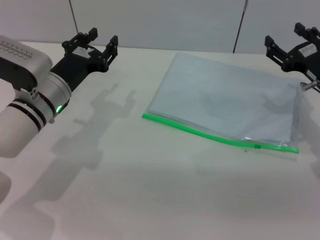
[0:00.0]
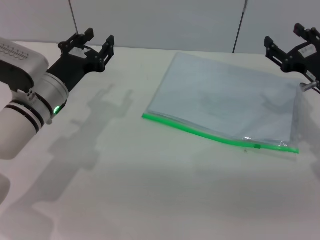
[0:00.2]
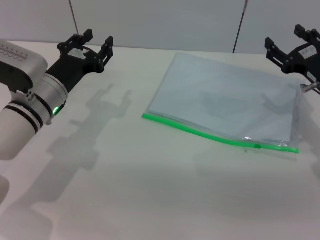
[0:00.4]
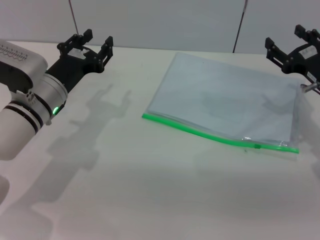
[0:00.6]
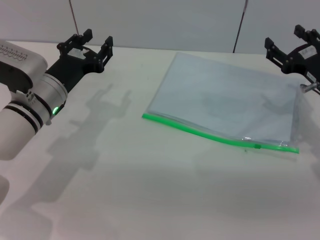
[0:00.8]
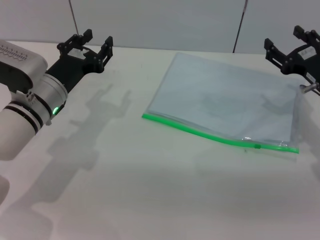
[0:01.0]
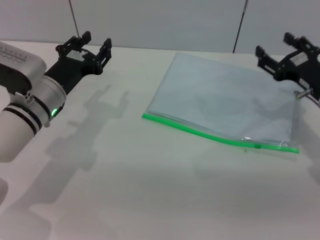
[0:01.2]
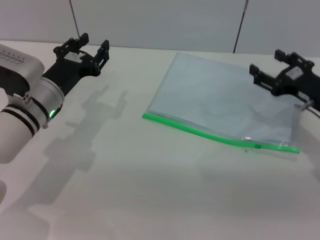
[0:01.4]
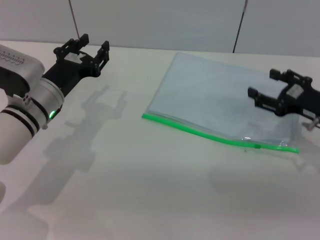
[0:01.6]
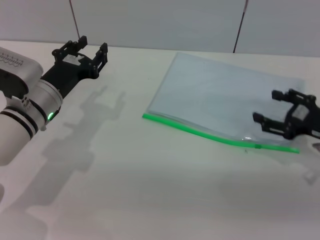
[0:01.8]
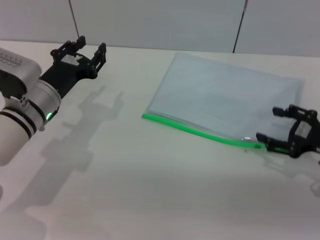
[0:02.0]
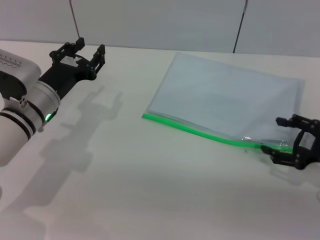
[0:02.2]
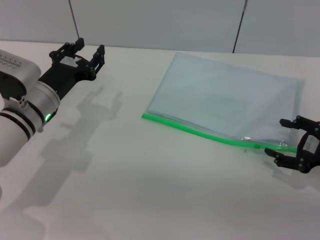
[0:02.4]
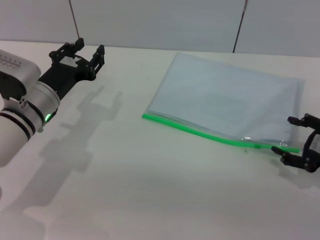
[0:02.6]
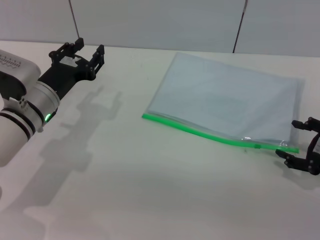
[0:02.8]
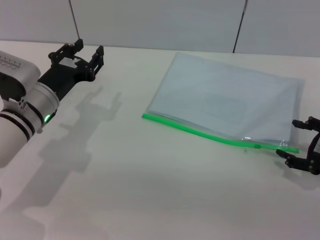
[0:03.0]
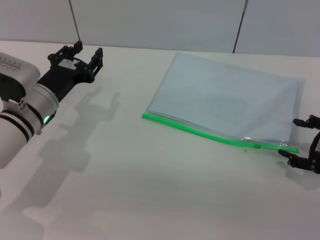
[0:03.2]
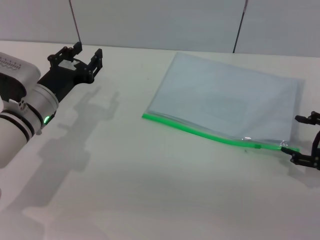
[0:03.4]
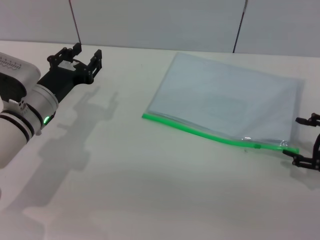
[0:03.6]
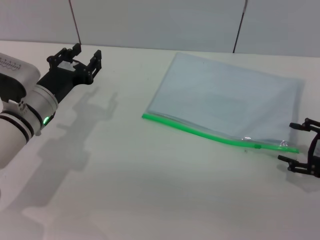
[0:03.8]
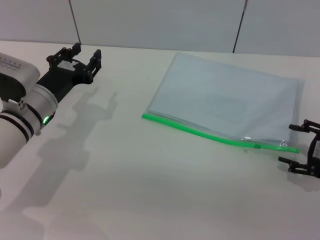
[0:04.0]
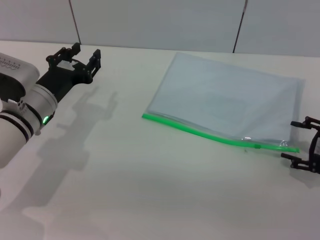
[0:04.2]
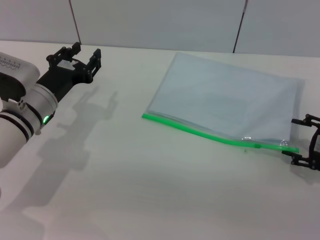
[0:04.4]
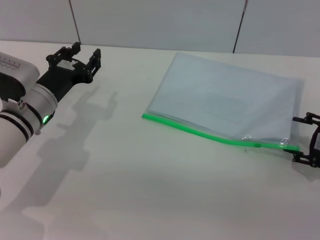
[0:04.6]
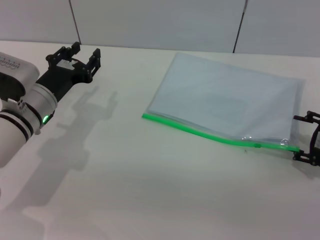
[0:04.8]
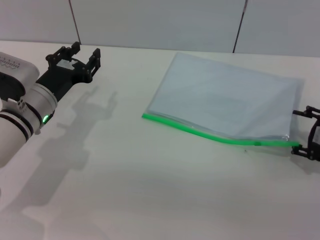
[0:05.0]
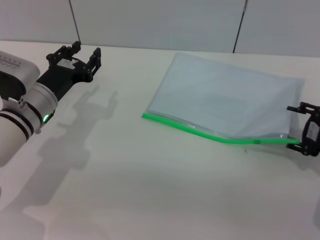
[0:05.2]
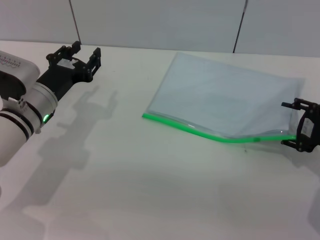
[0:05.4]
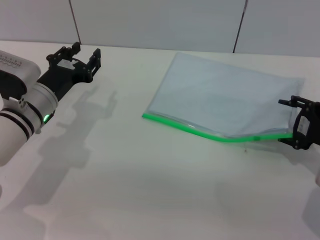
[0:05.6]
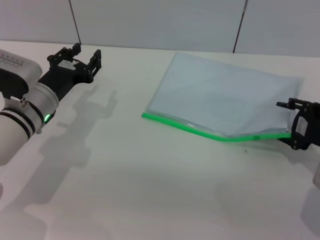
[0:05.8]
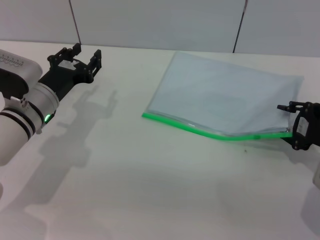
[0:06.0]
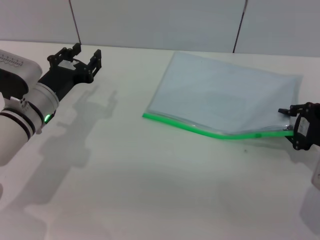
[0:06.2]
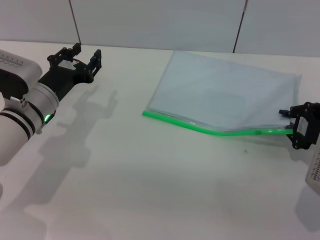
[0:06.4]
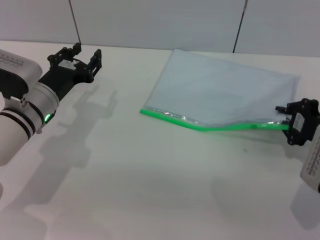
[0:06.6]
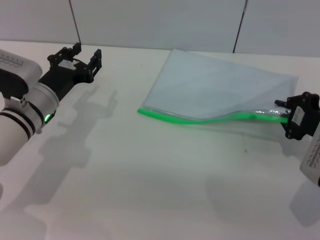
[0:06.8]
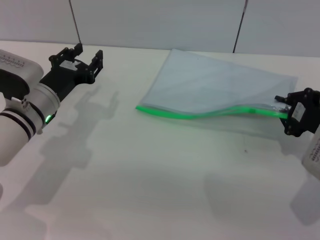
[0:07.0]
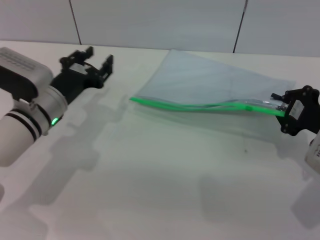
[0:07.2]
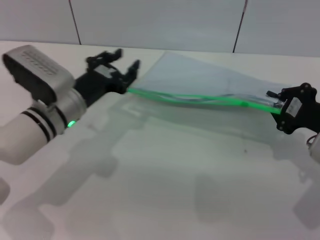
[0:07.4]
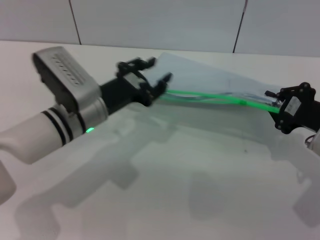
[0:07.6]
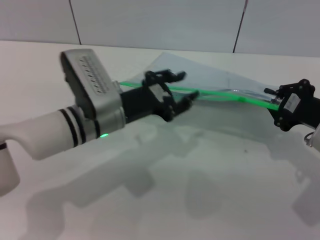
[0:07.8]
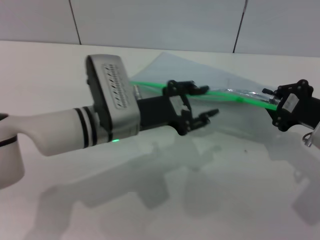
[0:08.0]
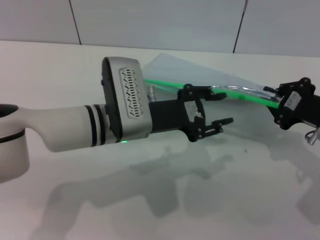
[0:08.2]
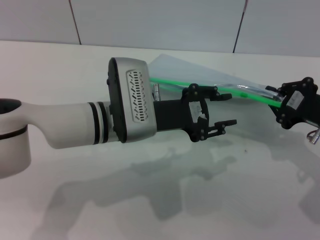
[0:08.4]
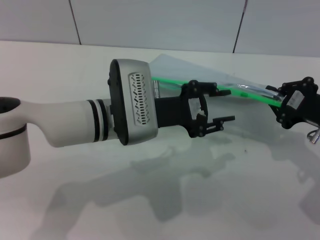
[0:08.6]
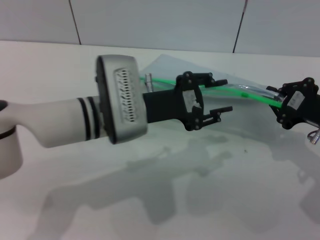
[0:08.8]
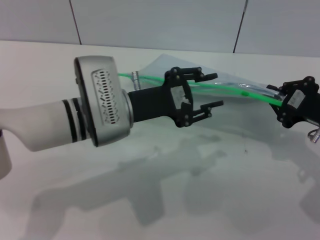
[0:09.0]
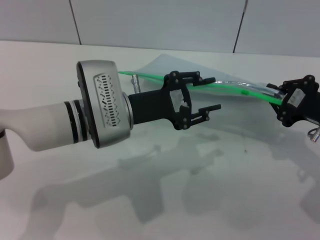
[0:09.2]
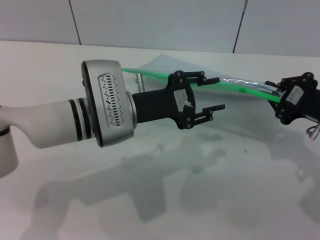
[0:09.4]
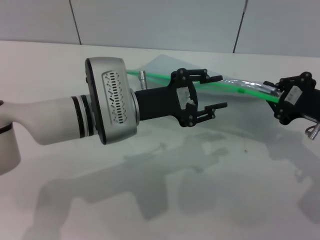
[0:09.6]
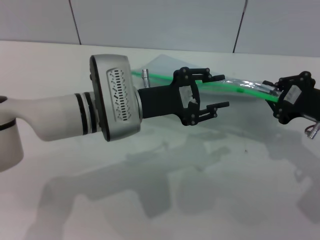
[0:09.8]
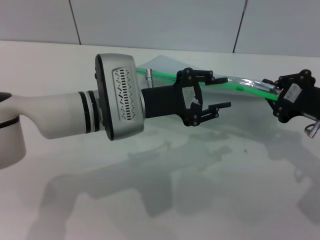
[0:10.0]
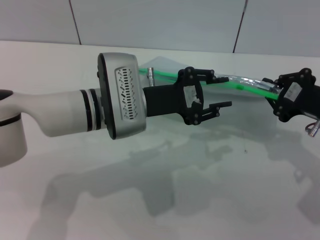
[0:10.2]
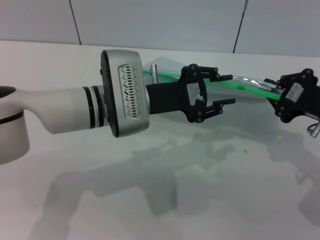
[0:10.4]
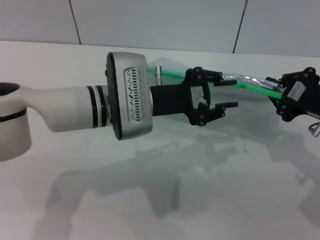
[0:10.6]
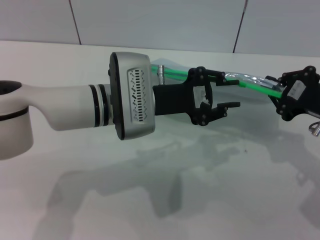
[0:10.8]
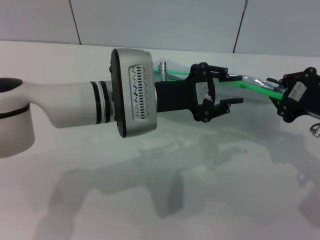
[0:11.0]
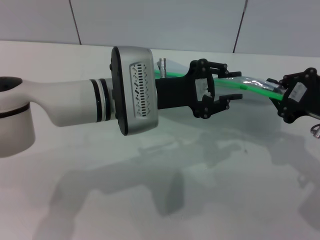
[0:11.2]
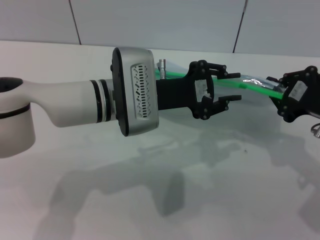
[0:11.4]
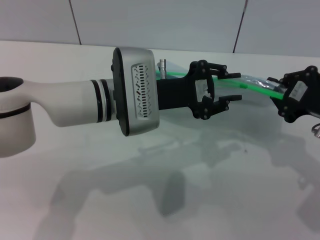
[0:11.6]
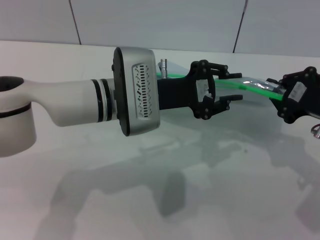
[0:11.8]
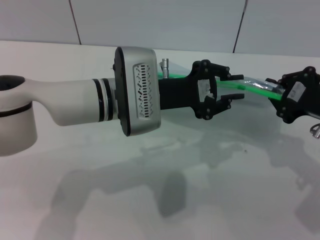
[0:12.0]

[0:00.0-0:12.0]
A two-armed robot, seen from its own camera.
Step, 0.0 to 9.8 s: Pick up the transparent plastic bag with the right gripper.
1.6 to 3.0 s: The right gripper travels backward by some 5 cm.
3.0 to 4.4 s: The grippers move only a little.
4.4 to 6.0 s: There are only small adjustments of the grippers.
6.0 to 7.6 s: The left gripper goes some 5 cm to the right; the right gripper closes its fingers.
7.6 to 9.0 s: The left gripper changes place by about 5 cm.
9.0 to 12.0 s: The grippers stay close to where they were, moving slightly.

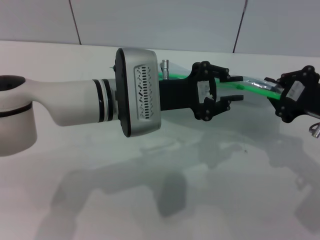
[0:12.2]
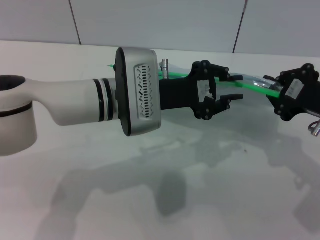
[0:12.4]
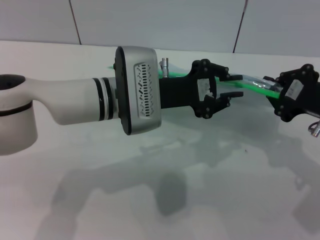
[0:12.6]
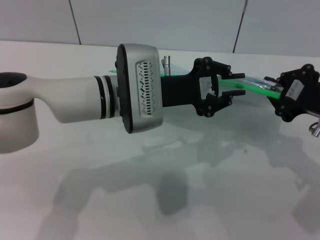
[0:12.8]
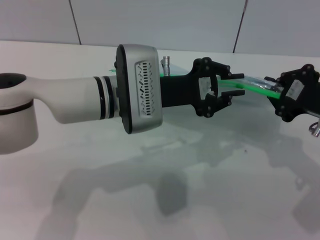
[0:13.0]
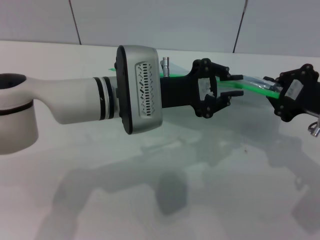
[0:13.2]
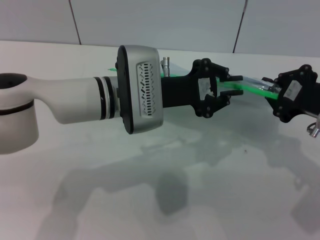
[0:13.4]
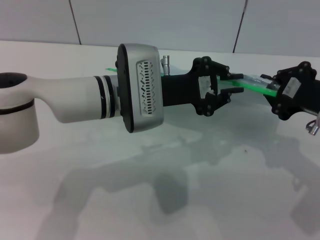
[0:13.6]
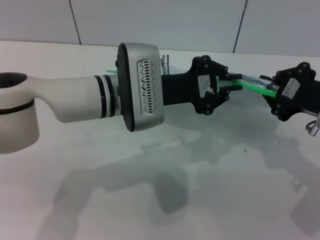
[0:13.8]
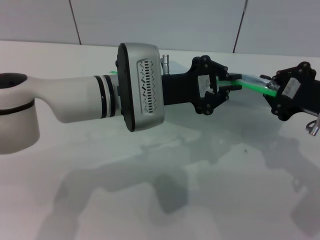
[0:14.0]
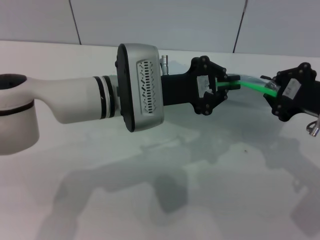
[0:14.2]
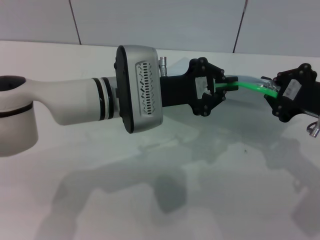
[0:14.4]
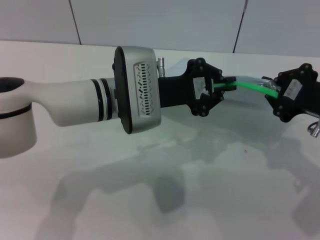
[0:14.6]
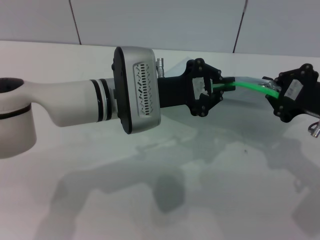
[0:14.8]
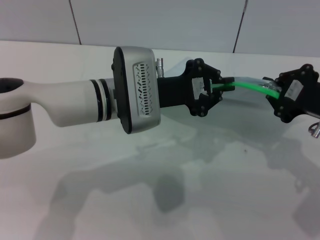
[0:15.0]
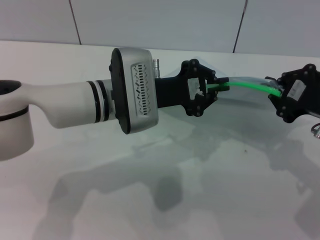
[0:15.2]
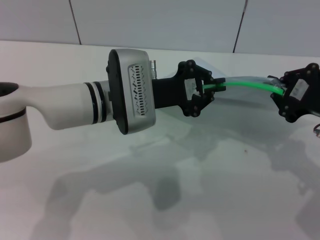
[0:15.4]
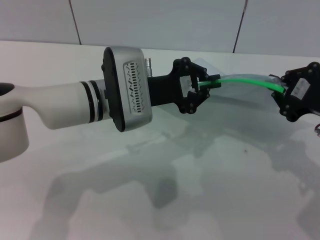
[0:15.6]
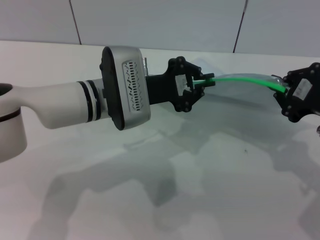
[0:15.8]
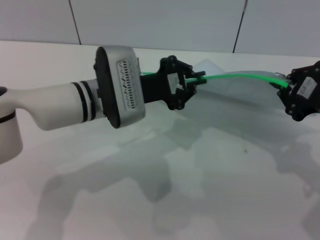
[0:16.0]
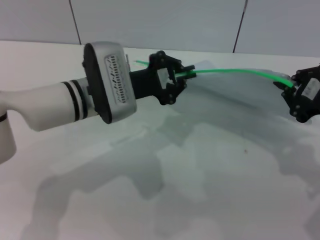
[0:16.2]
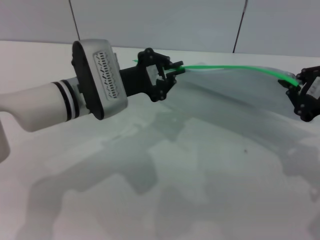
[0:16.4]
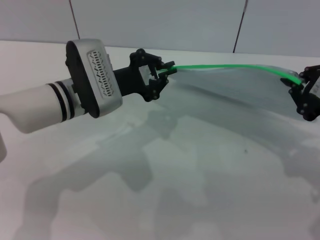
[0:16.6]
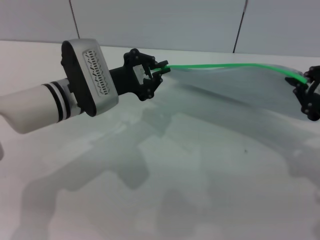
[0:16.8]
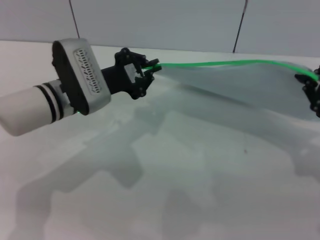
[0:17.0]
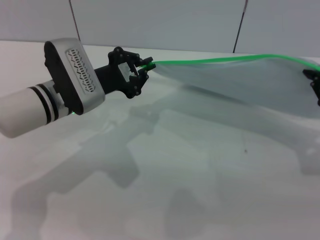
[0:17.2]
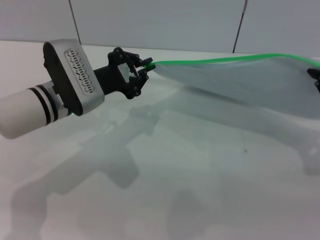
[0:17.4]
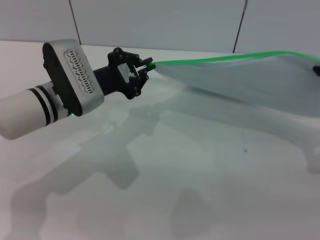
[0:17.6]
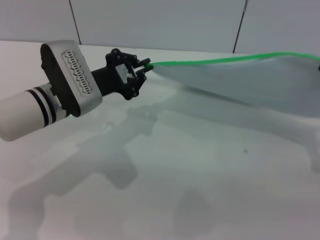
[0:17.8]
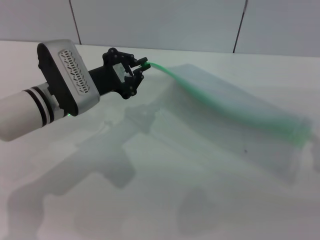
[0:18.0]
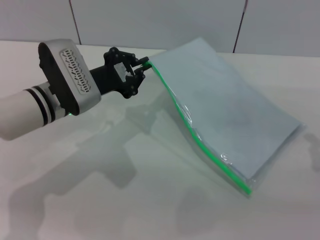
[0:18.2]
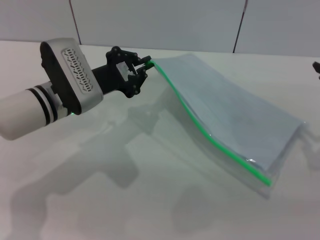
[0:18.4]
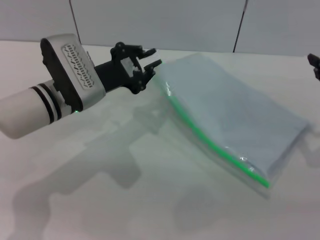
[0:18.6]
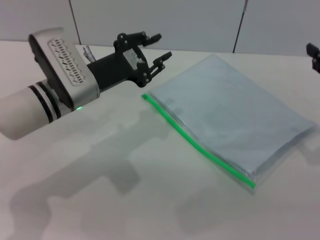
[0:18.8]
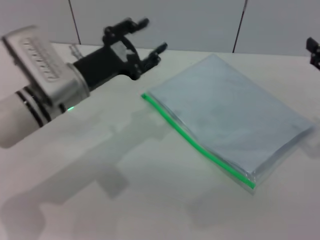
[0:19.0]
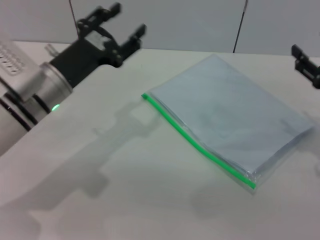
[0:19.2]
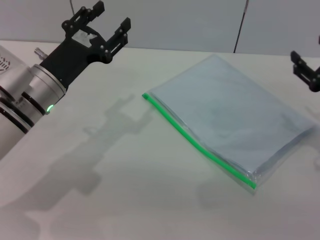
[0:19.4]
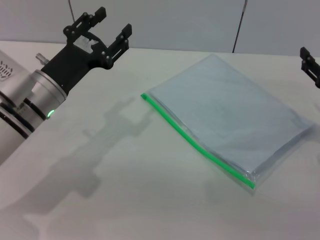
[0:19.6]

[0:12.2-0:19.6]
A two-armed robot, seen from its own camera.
Step, 12.2 to 18.2 s: Pulling up the zipper on the transparent plastic bag with the left gripper to close it.
Step, 18.4 to 19.0 s: Place the transparent plastic bag.
12.2 to 15.2 s: Both grippers stay about where they are.
15.2 to 16.6 s: The left gripper goes about 5 cm to the left.
18.2 to 19.6 s: The right gripper heads downward, covering about 10 cm, and opens. The left gripper opens.

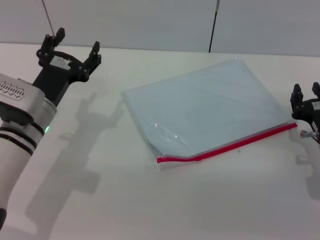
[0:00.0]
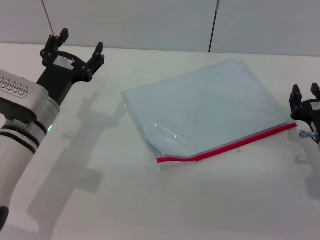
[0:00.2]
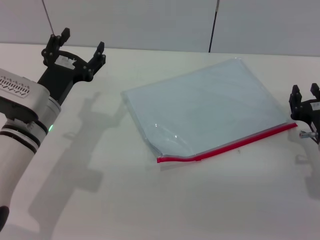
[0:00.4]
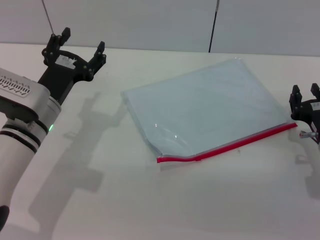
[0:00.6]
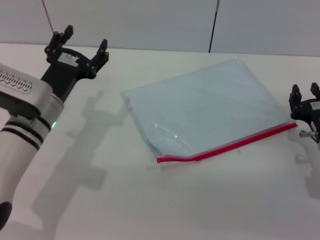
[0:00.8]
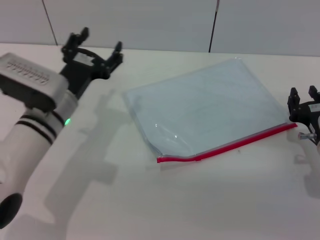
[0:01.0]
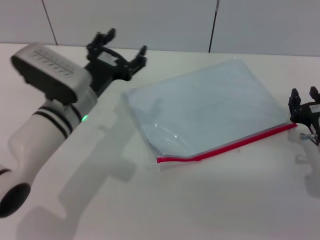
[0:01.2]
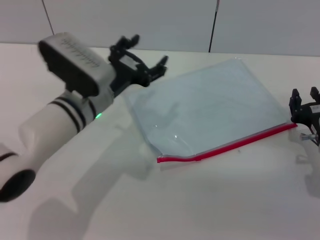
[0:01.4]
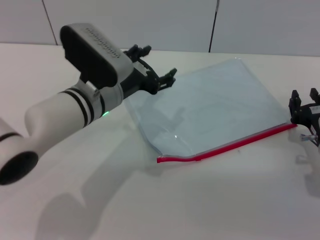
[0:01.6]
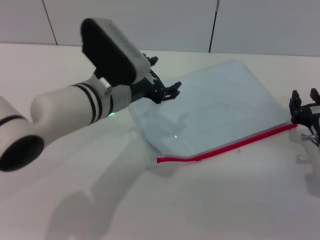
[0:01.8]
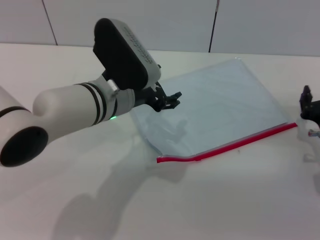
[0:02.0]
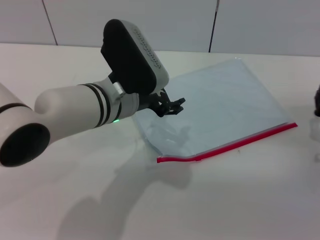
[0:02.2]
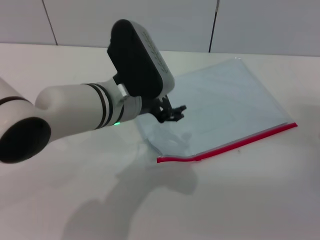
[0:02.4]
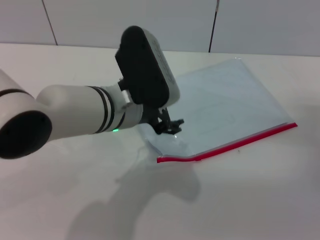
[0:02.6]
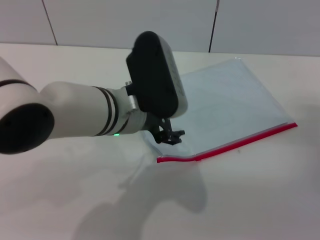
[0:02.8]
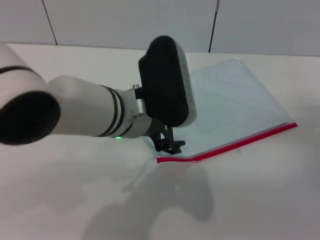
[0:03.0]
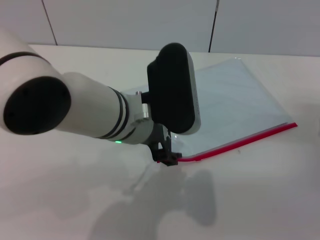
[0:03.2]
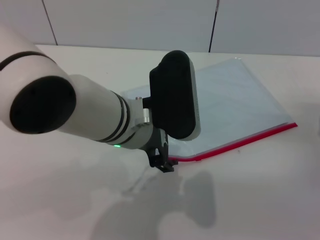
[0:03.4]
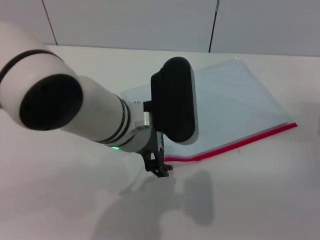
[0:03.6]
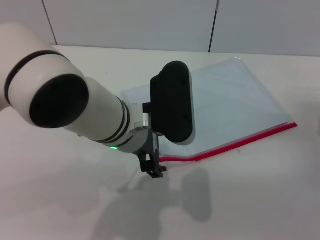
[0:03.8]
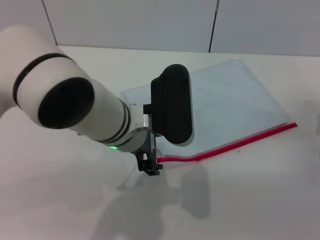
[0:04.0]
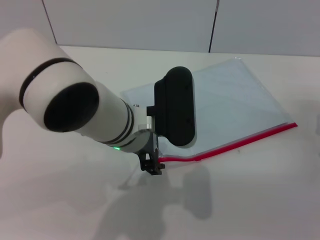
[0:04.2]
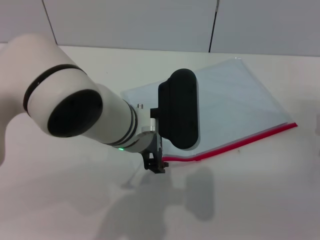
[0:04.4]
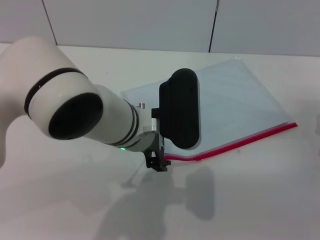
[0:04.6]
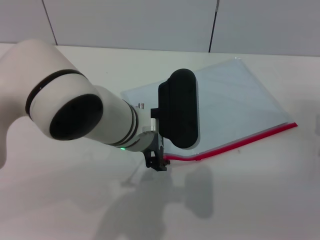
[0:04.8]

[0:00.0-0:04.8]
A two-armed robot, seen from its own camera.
0.0 to 1.6 s: The left gripper is displaced to the right by roughly 10 cm.
1.6 to 3.2 s: The left gripper travels upward, to the right and backward by roughly 10 cm.
3.2 to 4.8 s: There are only small adjustments of the grippers.
